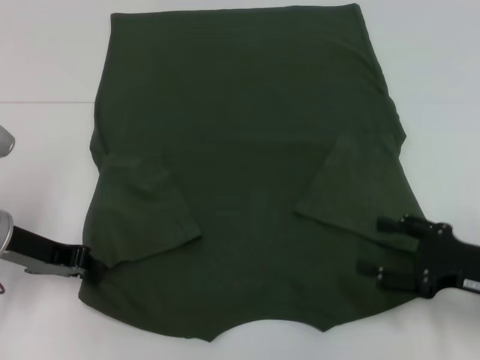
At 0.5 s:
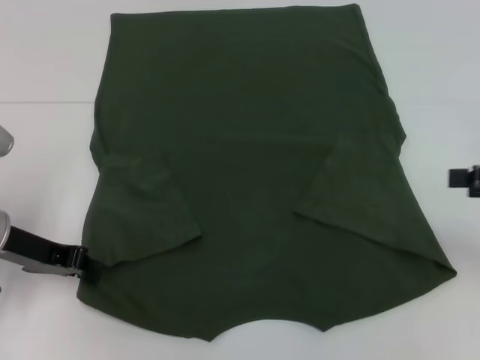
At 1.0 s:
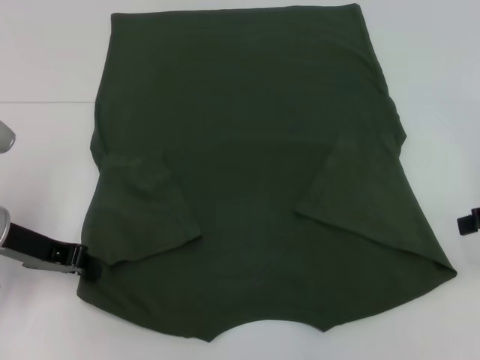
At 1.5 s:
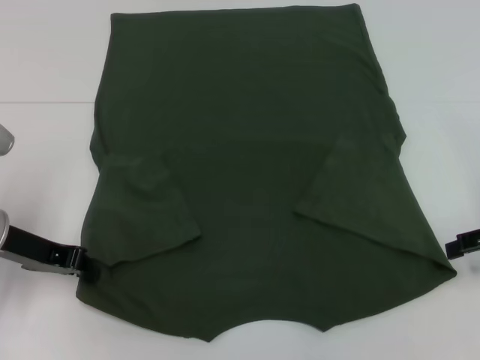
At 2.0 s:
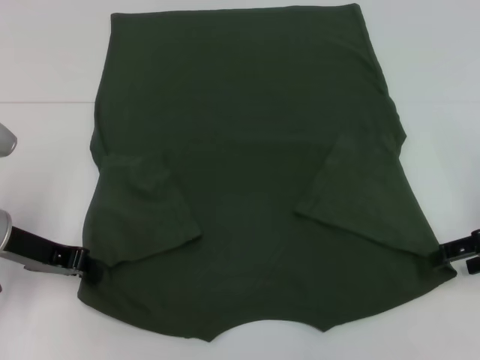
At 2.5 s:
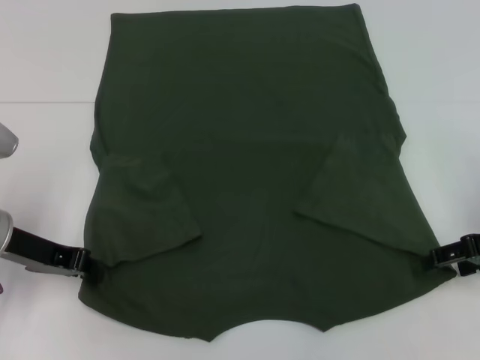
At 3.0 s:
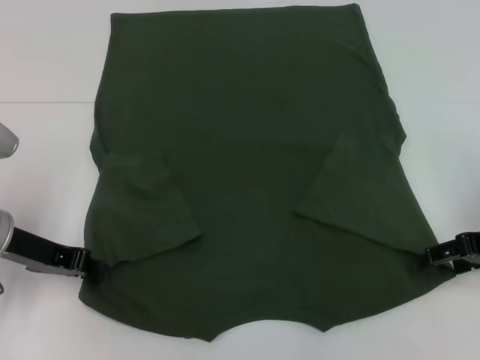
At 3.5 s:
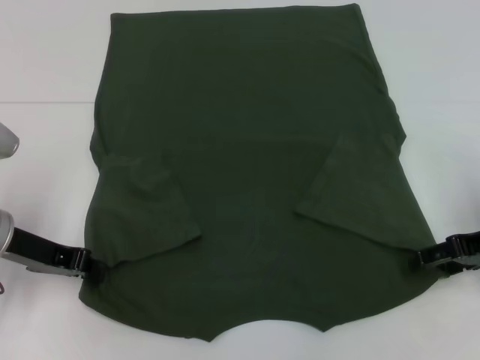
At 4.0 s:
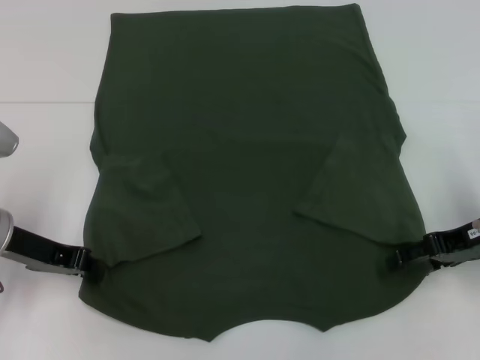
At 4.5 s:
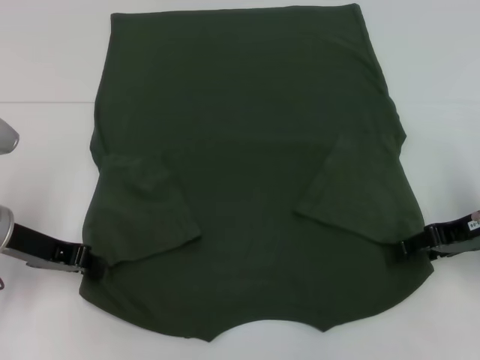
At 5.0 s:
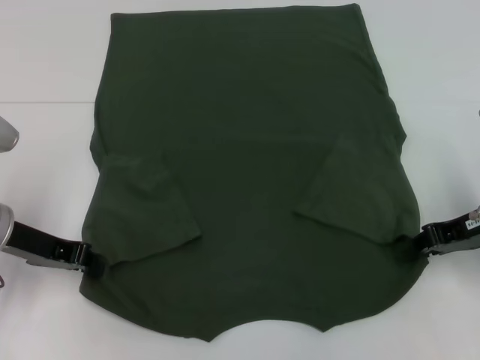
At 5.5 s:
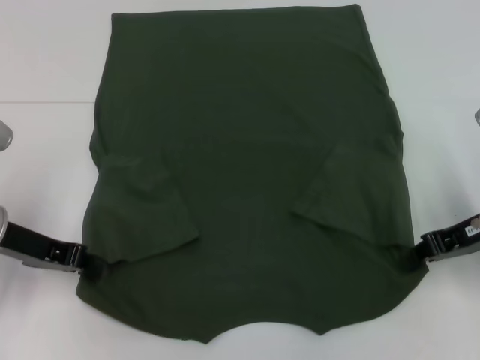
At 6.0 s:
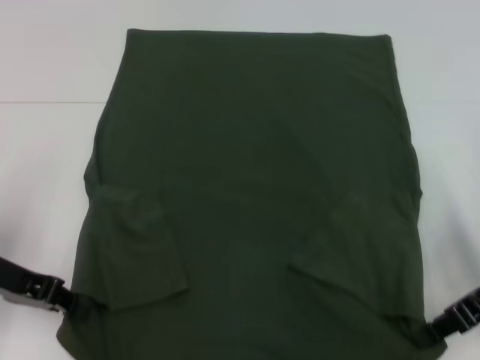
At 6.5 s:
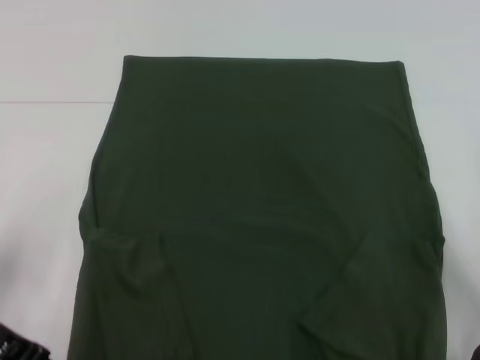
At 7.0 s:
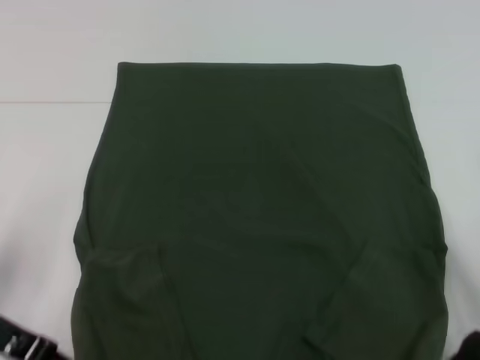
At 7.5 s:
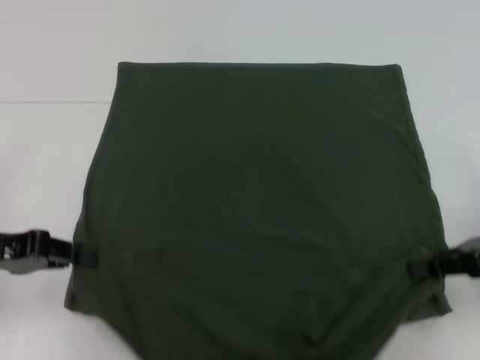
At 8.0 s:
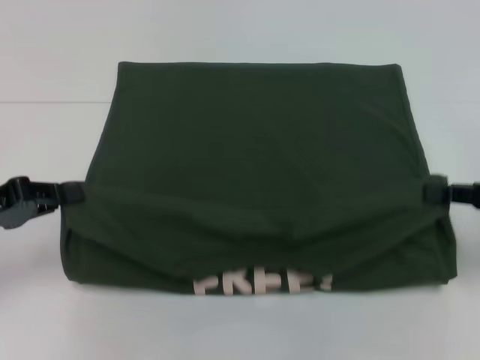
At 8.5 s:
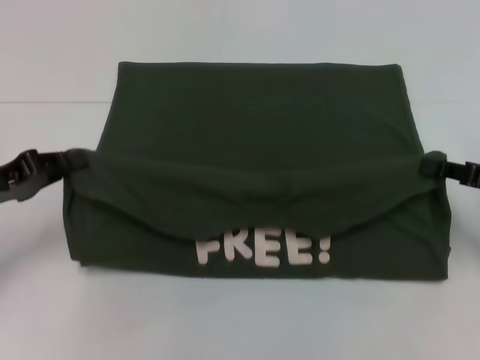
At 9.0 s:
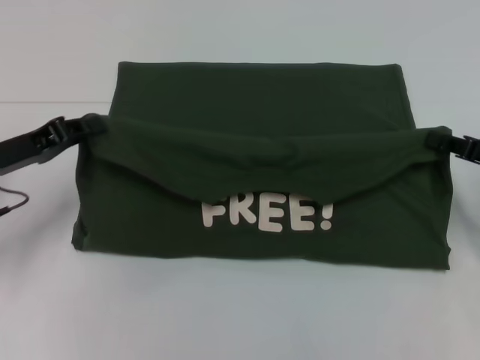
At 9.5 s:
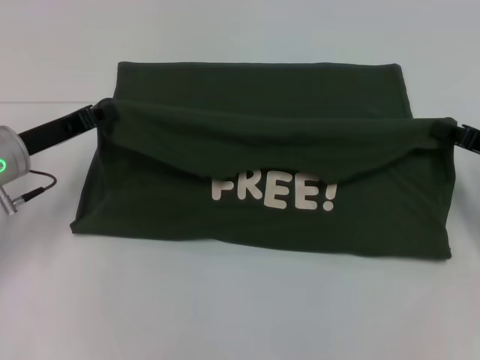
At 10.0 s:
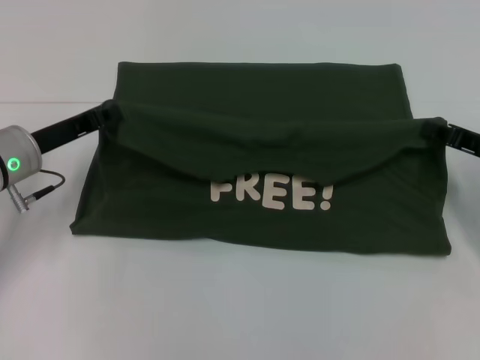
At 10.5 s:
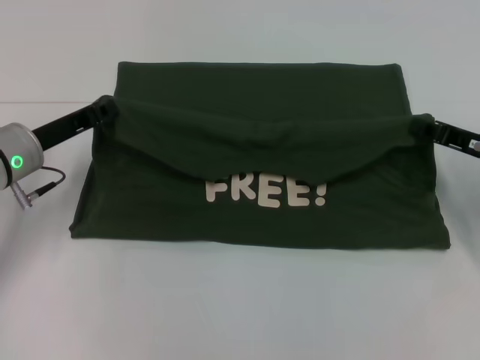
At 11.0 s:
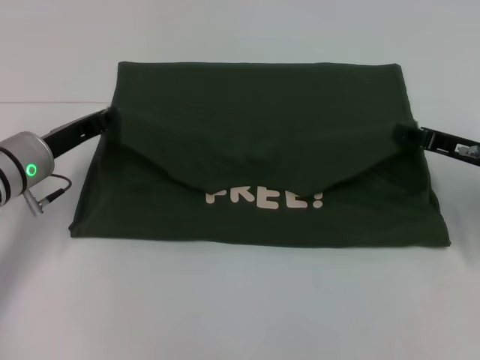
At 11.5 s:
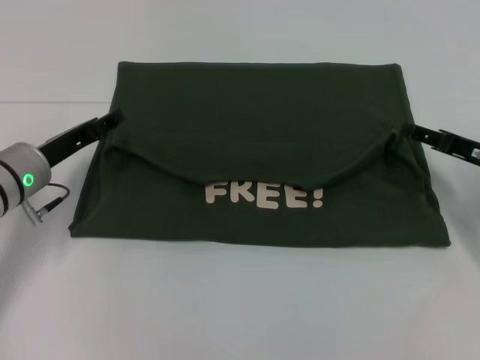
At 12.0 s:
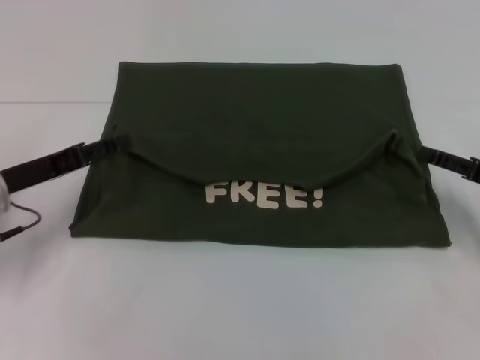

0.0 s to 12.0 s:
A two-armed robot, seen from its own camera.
Step, 0.5 to 5.5 s: Grab the bottom right corner with your right hand.
Step, 6.0 to 11.5 s: Fold the clothes with your left hand.
Step, 6.0 to 11.5 s: Fold the clothes with your right hand.
0.0 to 2.0 s: The right gripper shifts about 10 cm forward and upward.
2.0 to 4.0 s: The grippers make only small movements.
4.0 to 6.0 s: The right gripper closes up.
6.0 to 8.0 s: The right gripper goes some 5 cm to the right.
8.0 to 10.0 s: The left gripper shifts approximately 10 cm forward and to the right; the right gripper goes about 5 cm forward.
10.0 to 12.0 s: The right gripper opens up, while the left gripper opens up.

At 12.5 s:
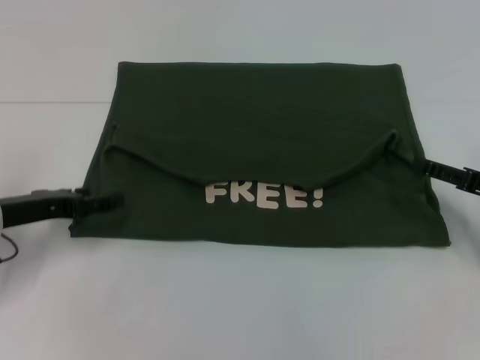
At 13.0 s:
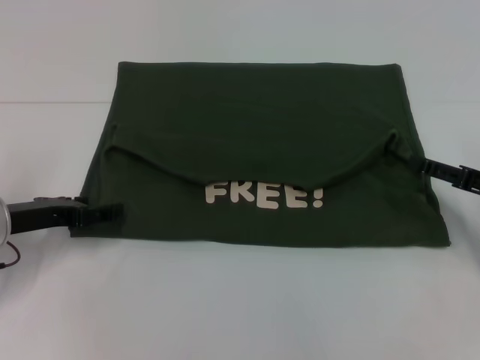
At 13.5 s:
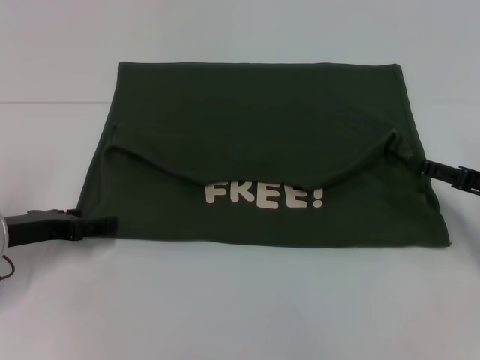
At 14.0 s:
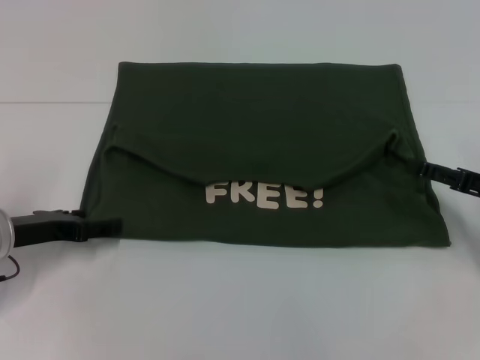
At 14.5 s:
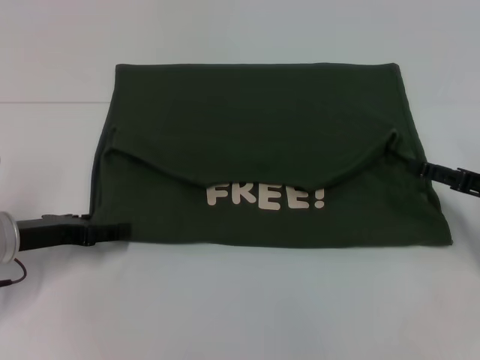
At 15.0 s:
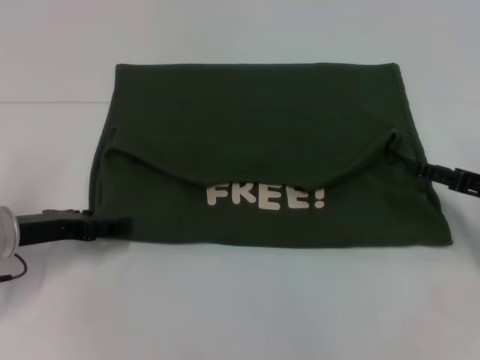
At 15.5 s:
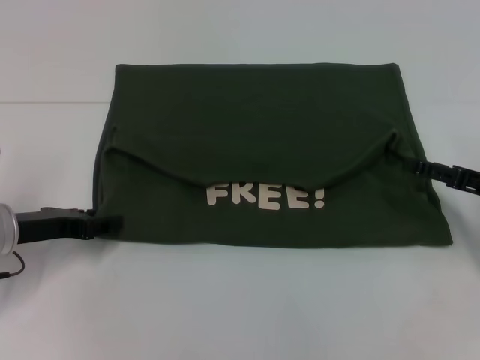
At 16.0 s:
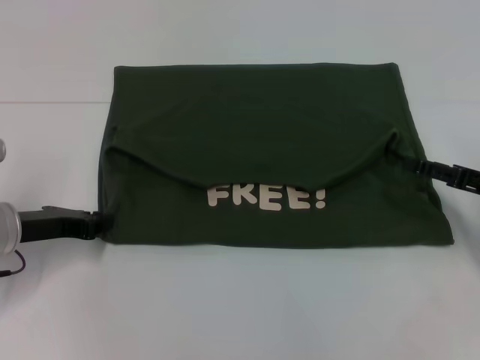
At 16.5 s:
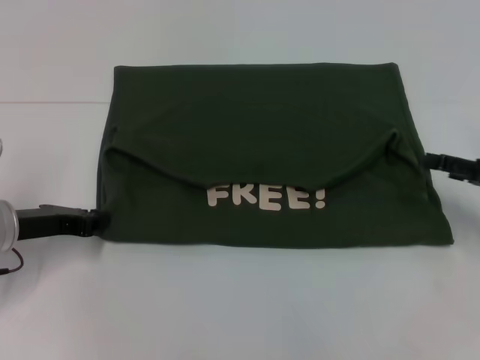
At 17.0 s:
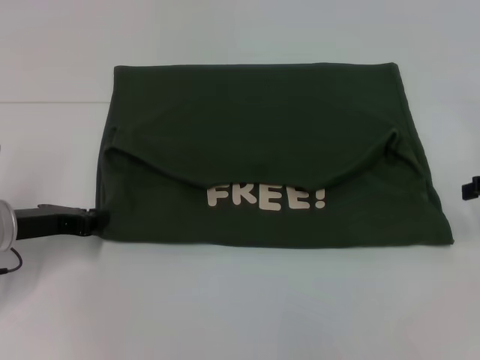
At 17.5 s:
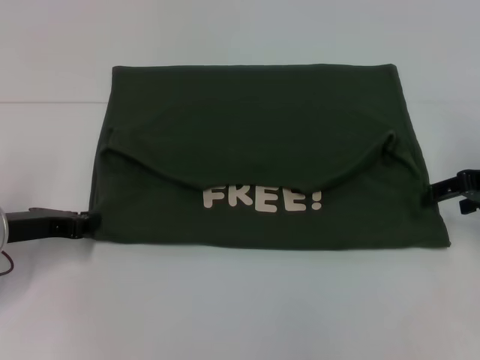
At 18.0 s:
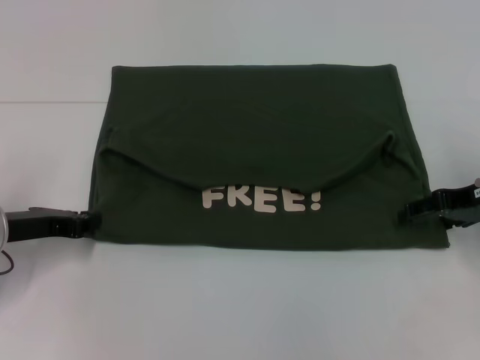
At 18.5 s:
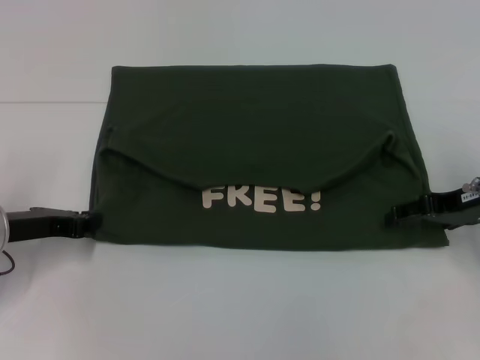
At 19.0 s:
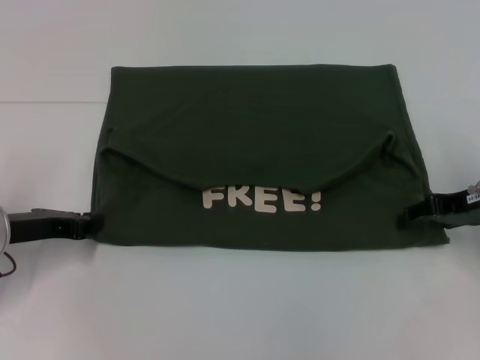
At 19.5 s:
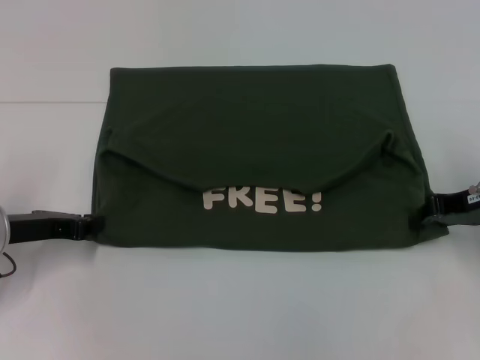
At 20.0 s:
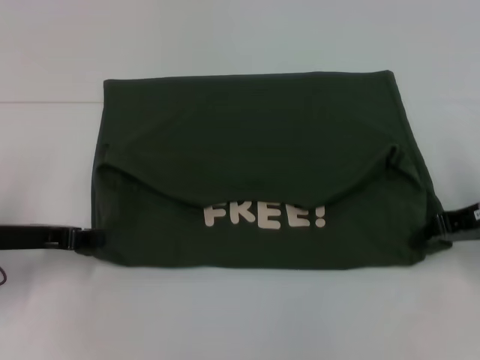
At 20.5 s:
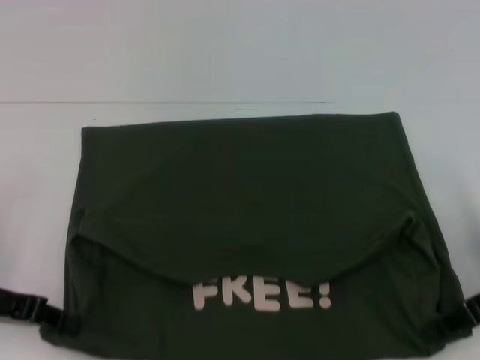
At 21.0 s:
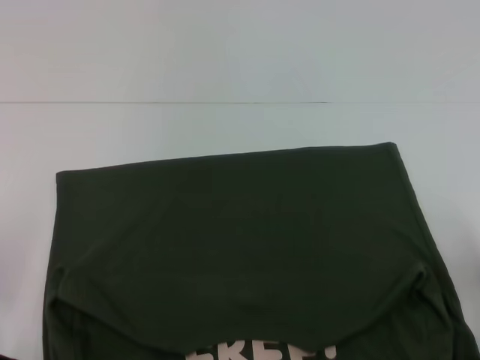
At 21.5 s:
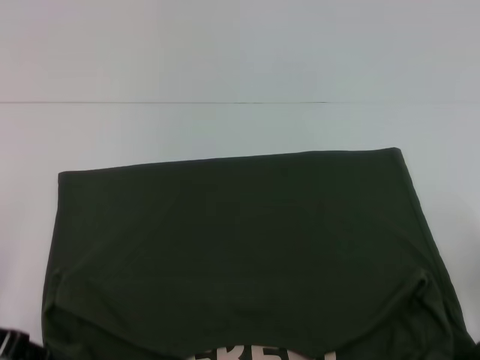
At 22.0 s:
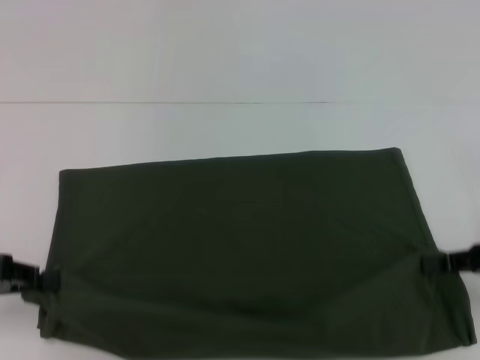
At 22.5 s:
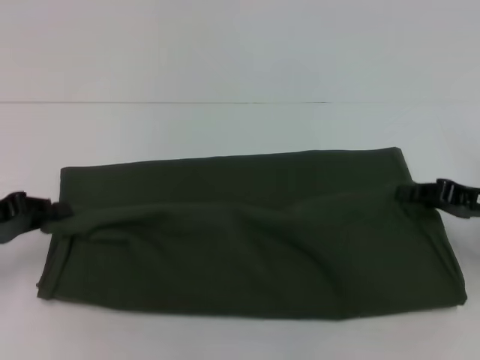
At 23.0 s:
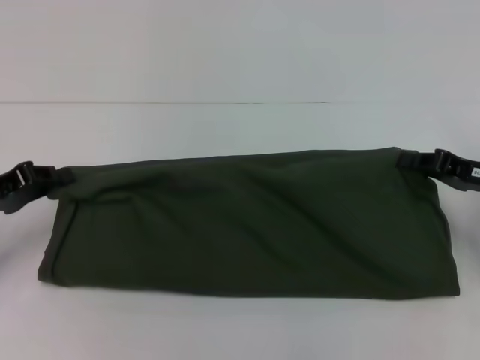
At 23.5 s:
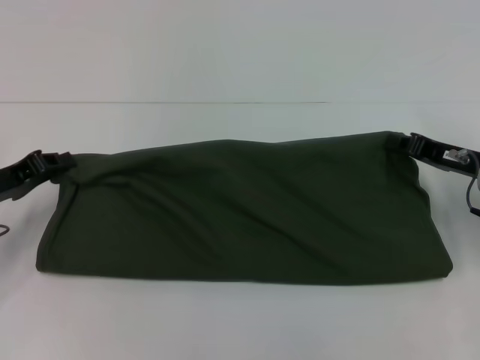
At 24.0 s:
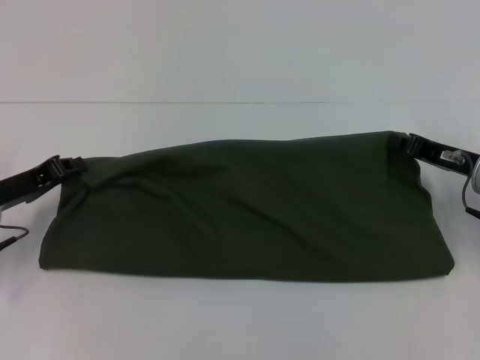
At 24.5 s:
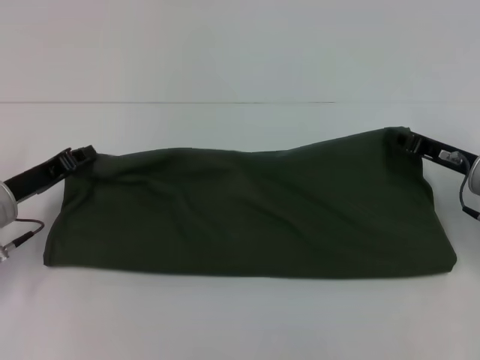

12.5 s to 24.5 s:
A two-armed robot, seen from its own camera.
Step, 12.5 to 21.0 s: Pull the clothes with your left hand.
Step, 12.5 to 21.0 s: Pull the clothes with your right hand.
12.5 to 14.5 s: The grippers move only a little.
14.5 to 16.5 s: The left gripper closes up.
16.5 to 18.5 s: The right gripper moves to the left, about 5 cm.
18.5 to 20.5 s: The right gripper goes about 5 cm backward, and closes; the left gripper ends up about 5 cm from where it was.
22.5 to 24.5 s: The left gripper travels to the right by approximately 5 cm. The right gripper changes place by approximately 5 cm.

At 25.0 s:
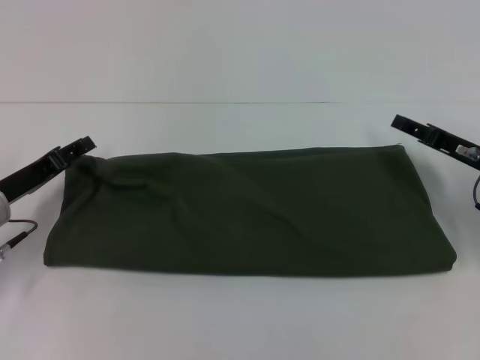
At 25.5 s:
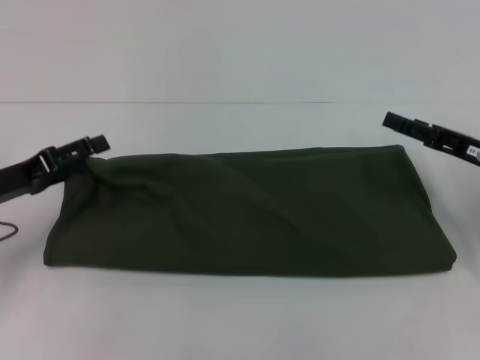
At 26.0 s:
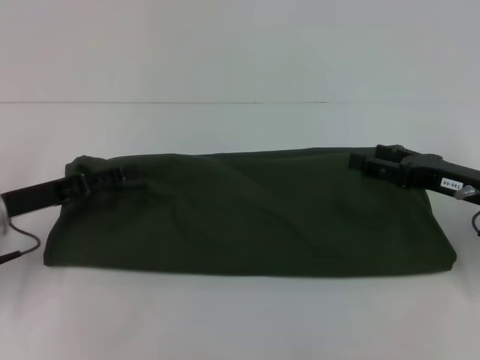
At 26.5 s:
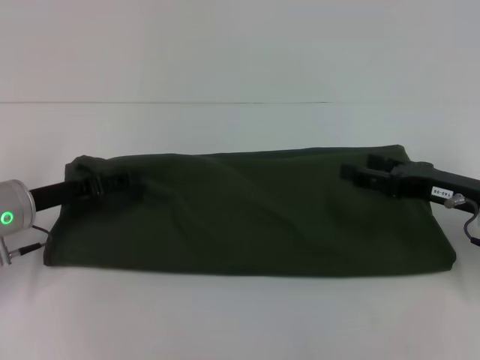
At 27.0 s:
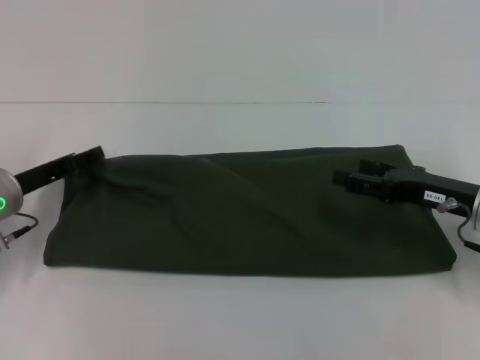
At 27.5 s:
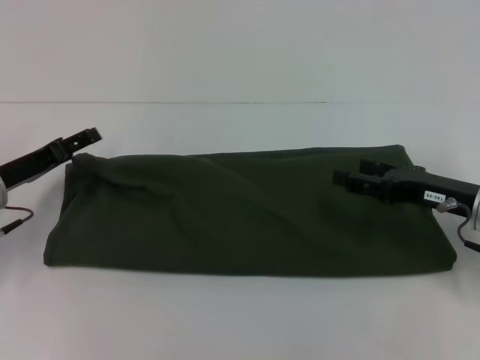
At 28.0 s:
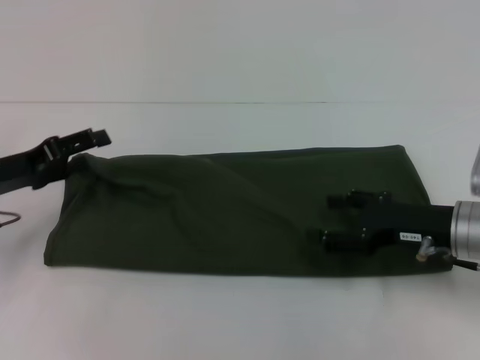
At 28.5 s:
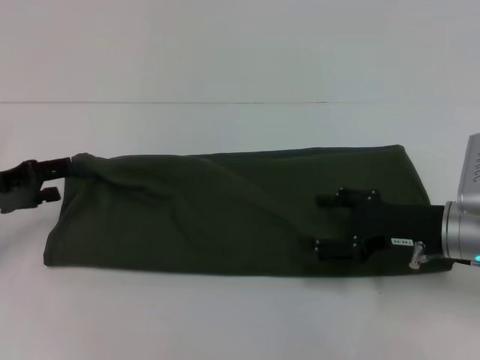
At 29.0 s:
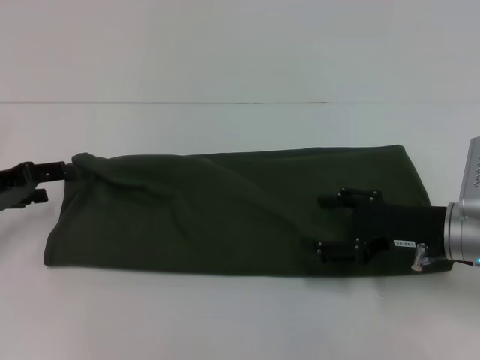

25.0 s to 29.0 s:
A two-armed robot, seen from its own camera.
25.0 to 27.0 s: The right gripper opens; the left gripper opens.
27.0 to 29.0 s: The left gripper is displaced to the left by about 5 cm.
